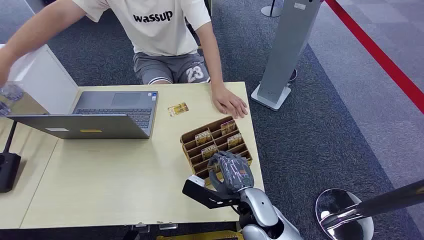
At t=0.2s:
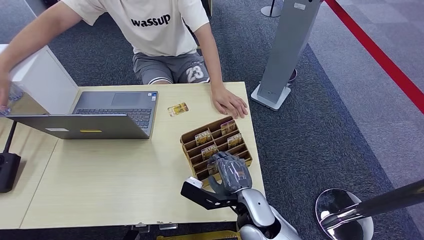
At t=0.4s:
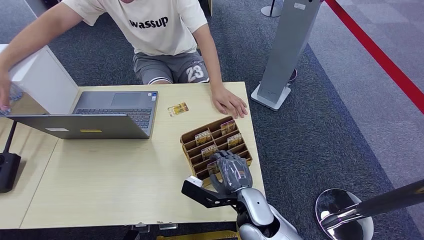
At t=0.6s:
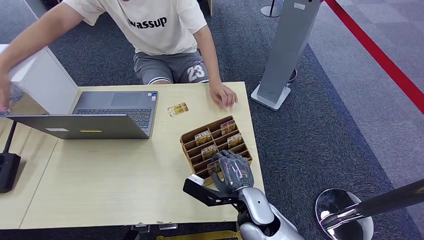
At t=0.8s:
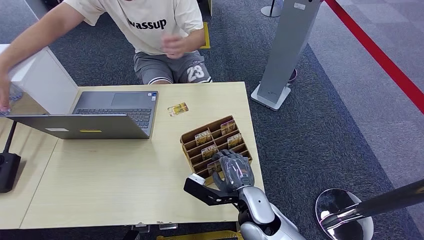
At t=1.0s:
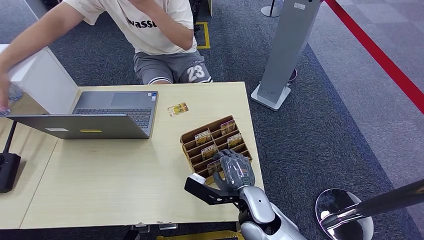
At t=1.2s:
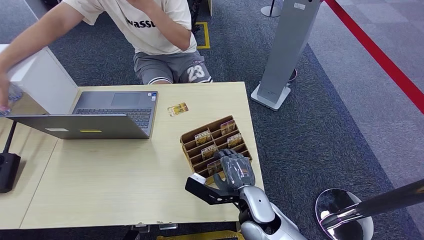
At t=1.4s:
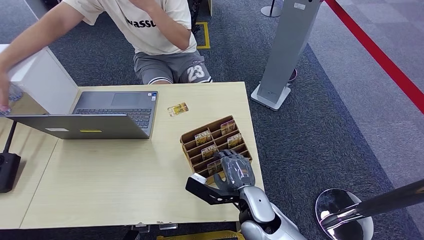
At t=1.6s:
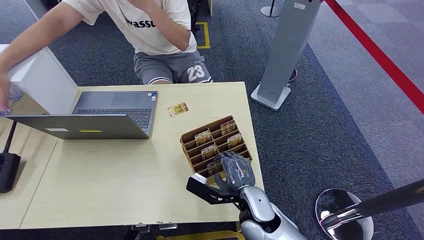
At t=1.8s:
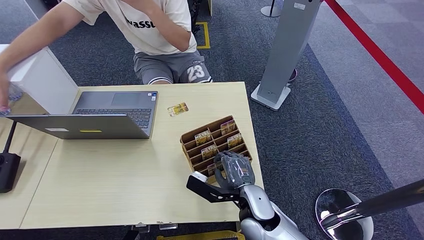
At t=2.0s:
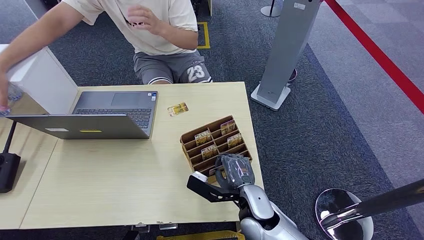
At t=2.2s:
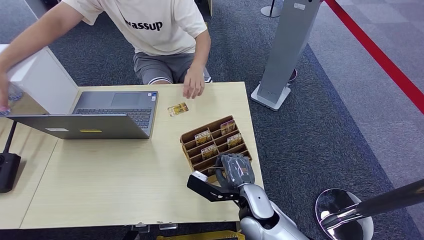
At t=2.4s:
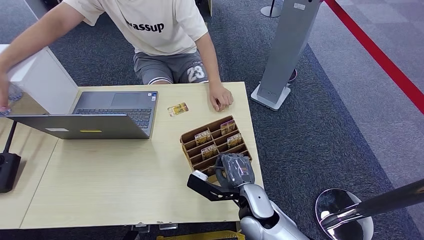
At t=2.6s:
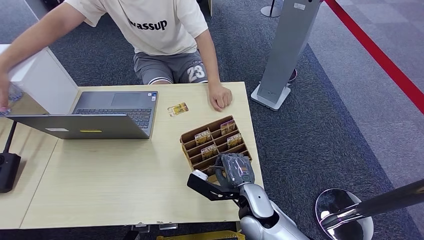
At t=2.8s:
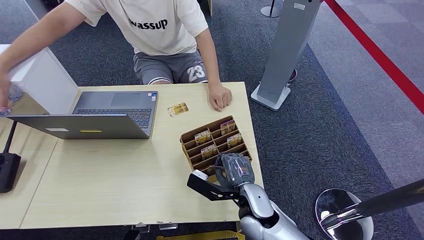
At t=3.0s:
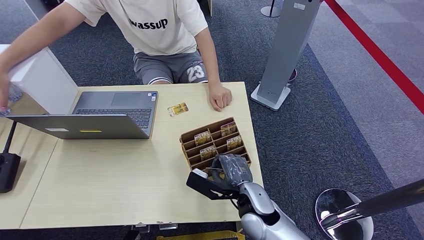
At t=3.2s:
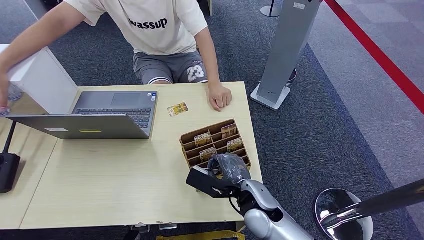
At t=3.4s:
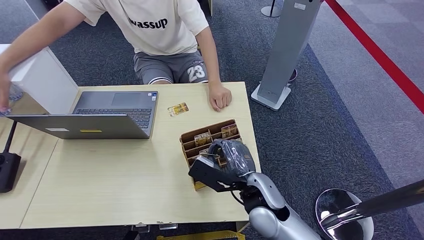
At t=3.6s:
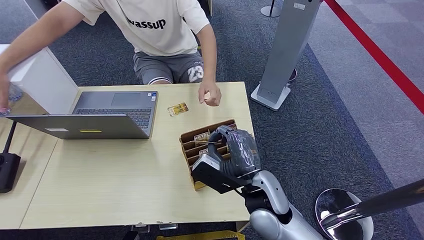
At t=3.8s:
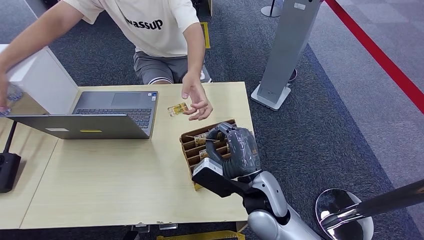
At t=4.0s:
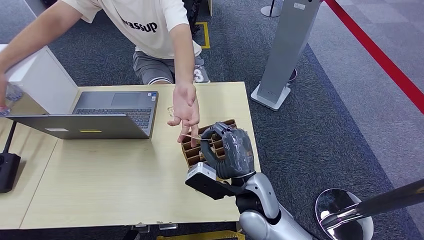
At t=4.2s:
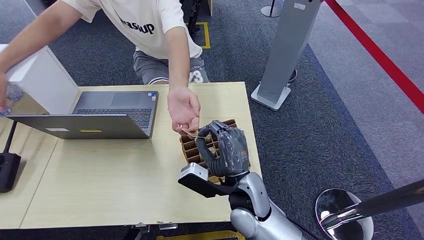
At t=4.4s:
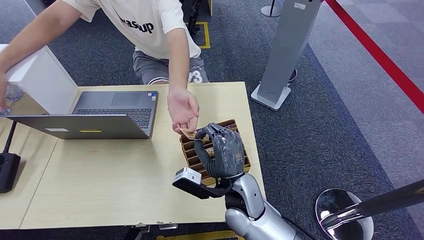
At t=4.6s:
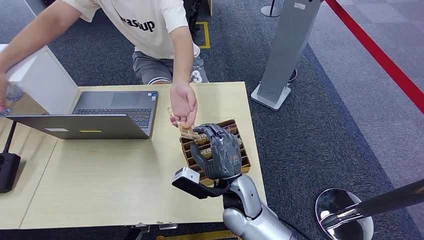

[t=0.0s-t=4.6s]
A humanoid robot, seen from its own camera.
Step, t=0.0s to t=2.0s: Pick up the room card from the card holder.
Step, t=3.6s to t=4.6s: Hand the room card to the target.
t=1.6s to t=3.0s: There are only small adjustments of the hands.
